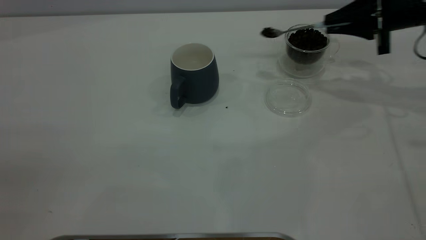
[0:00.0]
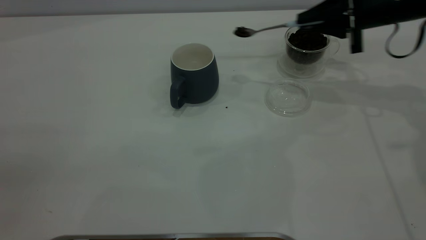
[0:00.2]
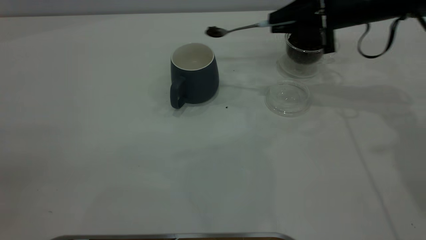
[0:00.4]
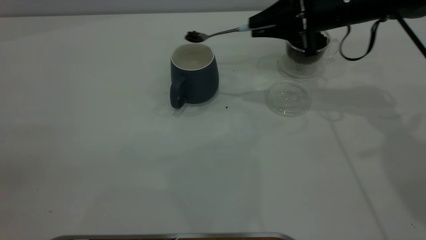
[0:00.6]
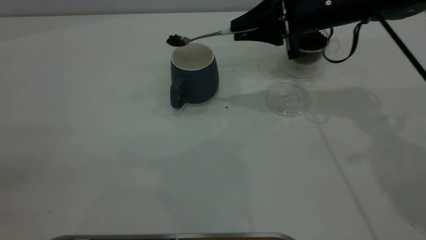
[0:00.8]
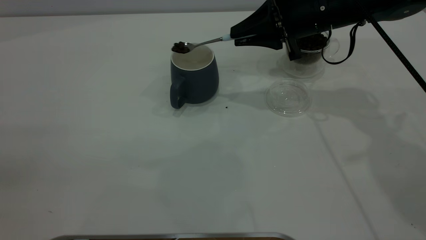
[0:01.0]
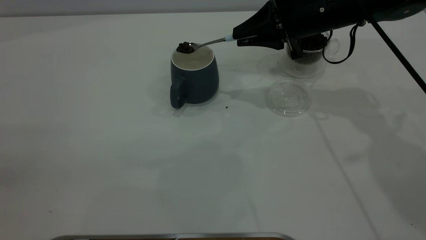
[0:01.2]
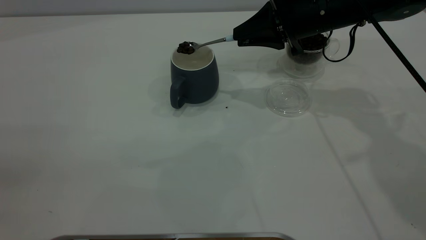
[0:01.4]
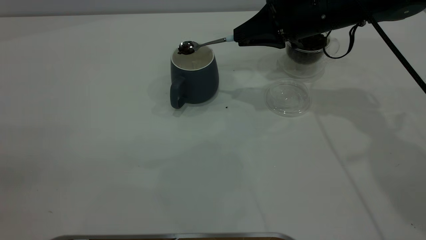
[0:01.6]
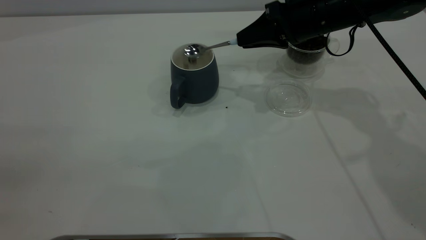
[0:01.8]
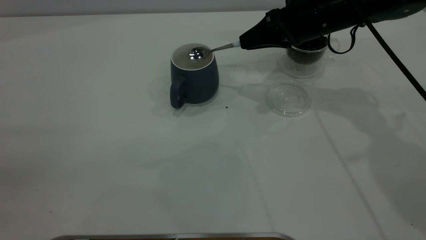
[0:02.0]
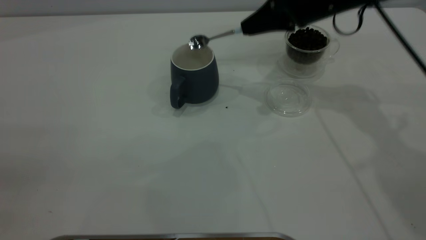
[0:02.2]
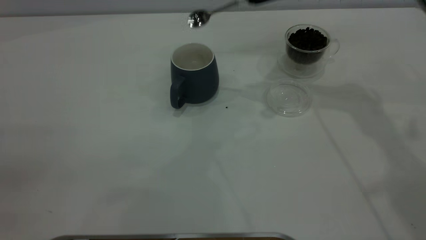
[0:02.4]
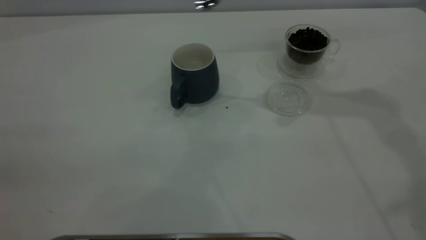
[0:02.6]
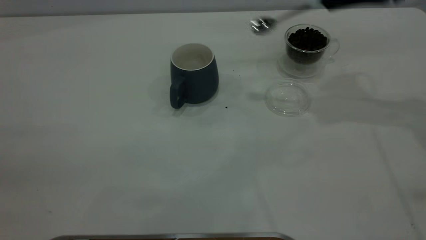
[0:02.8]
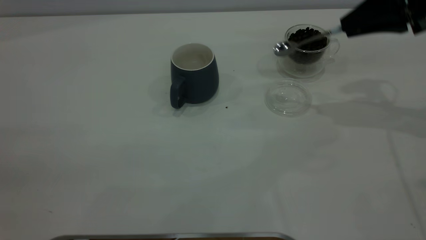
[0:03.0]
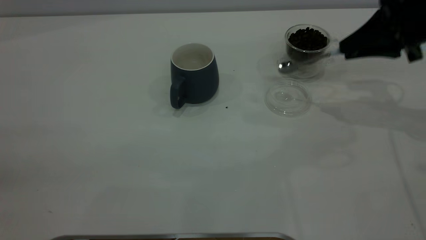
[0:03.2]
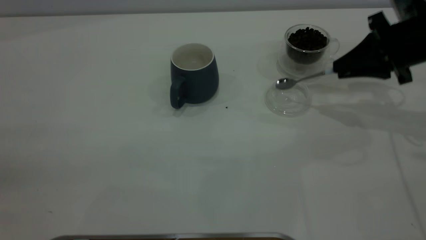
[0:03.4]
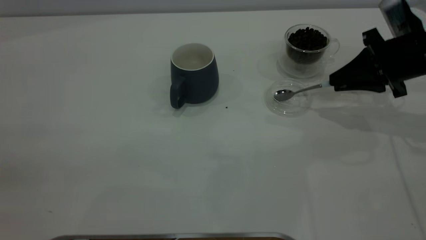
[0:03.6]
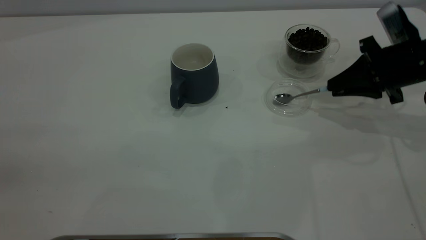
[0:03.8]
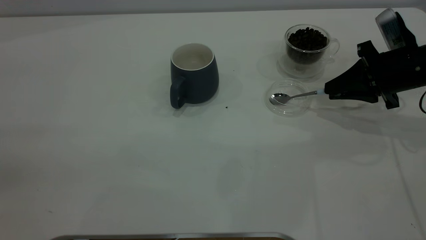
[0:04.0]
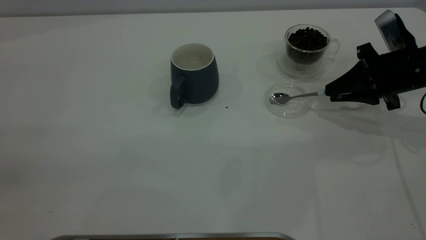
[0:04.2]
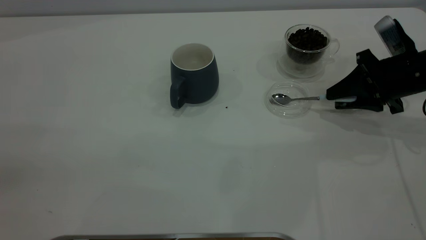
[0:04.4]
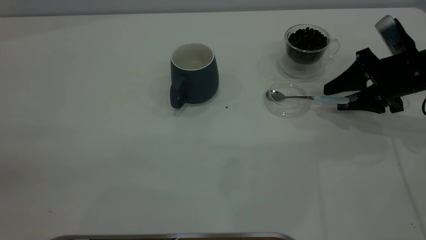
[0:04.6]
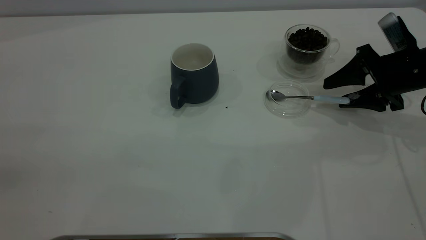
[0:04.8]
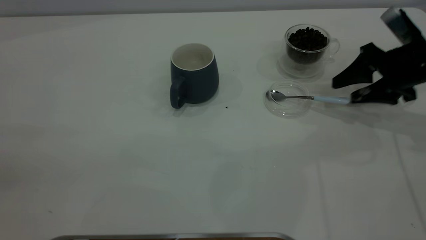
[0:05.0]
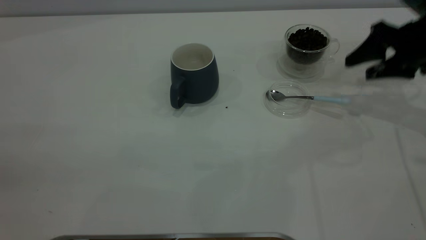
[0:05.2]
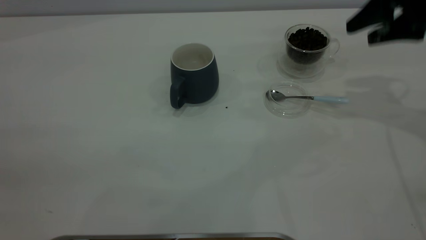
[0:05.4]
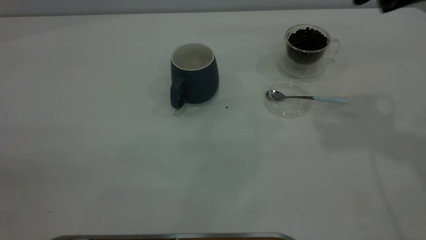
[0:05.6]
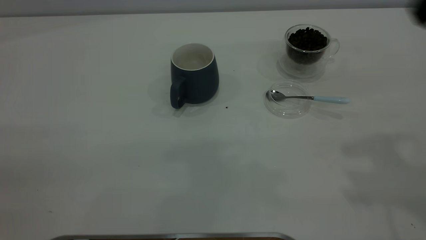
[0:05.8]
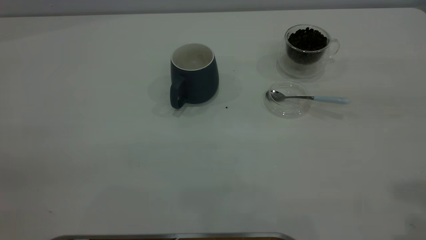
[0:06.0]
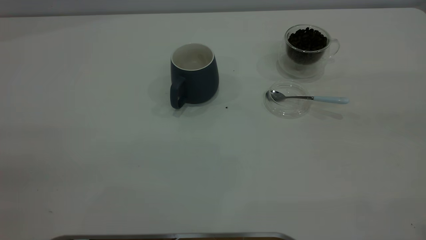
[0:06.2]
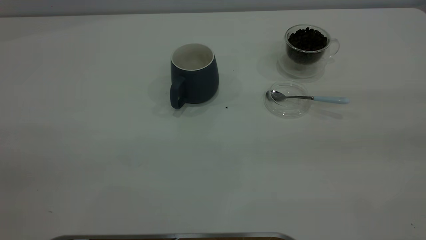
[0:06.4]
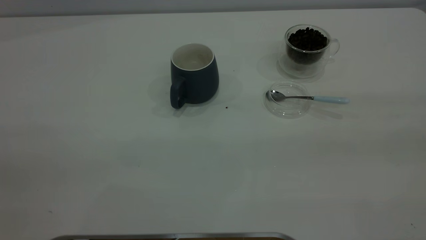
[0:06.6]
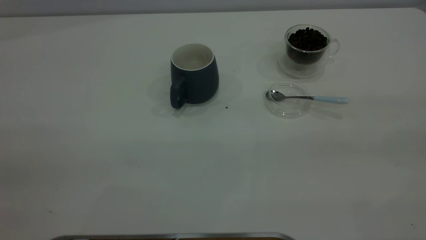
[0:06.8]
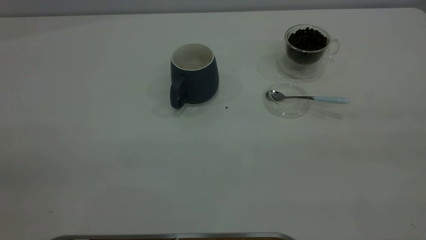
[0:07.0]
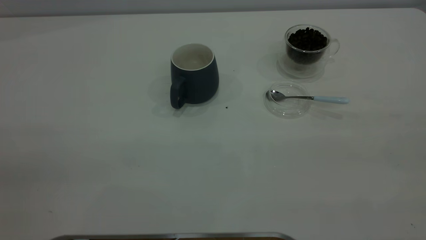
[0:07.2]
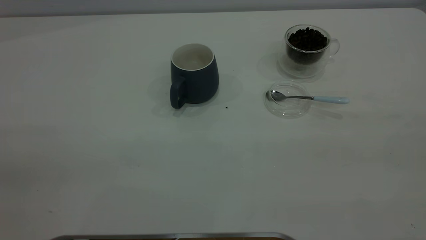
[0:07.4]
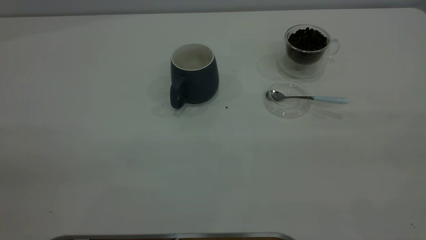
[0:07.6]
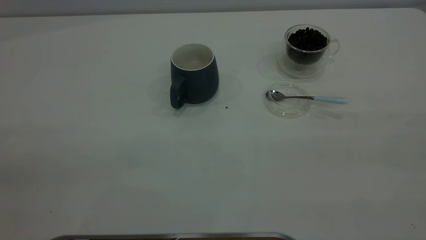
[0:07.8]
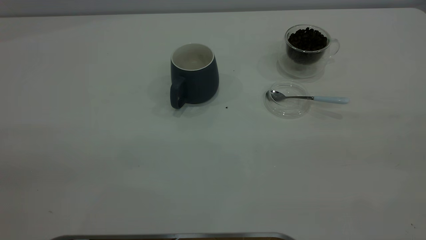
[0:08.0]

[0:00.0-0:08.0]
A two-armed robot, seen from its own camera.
Task of the whole recording: the left gripper place the grey cup in the center of the table, the right gripper take the blue spoon from the cup lid and scoop out the coffee beans from the coffee cup and put them into the grey cup, the right gripper put the spoon back into the cup lid.
Step, 0:00.0 to 0:02.2: Scoop a spoonful of beans into the cup.
Step, 0:02.4 to 0:05.0: Place the spoon back in its original place.
0:00.0 to 0:01.6: The right gripper moves to the left, some 15 cm.
0:01.6 to 0:03.2: The right gripper moves to the right, approximately 15 cm.
0:03.2 to 0:04.8: The right gripper is displaced downward by about 10 cm, and opens.
0:04.8 to 0:06.4: The right gripper goes roughly 40 cm backward and upward.

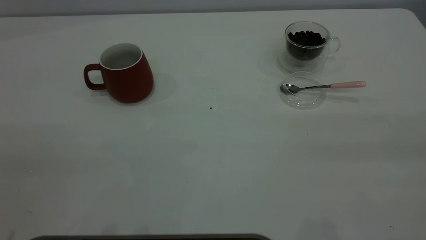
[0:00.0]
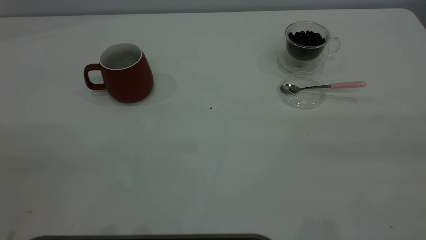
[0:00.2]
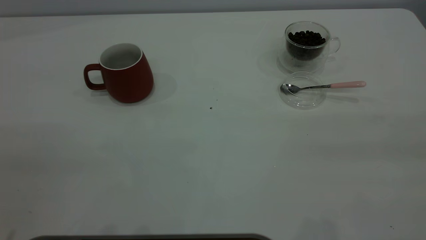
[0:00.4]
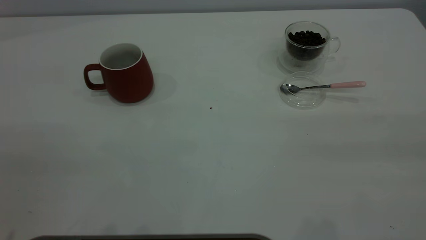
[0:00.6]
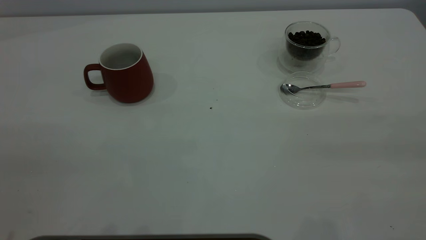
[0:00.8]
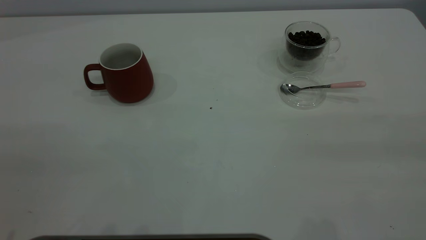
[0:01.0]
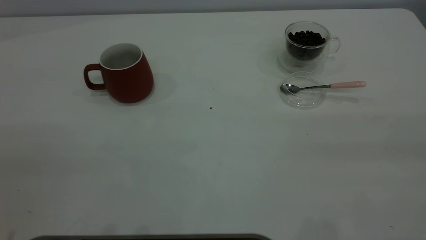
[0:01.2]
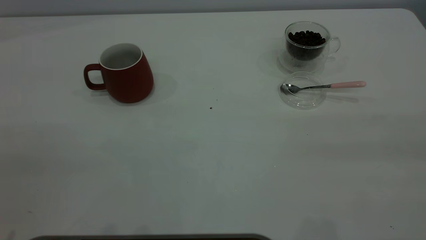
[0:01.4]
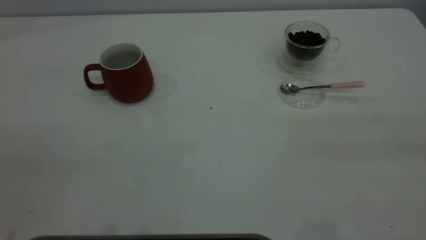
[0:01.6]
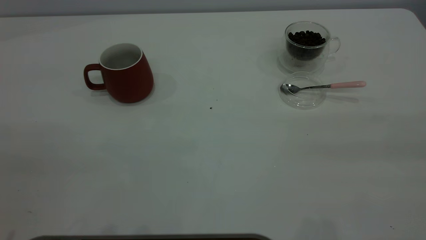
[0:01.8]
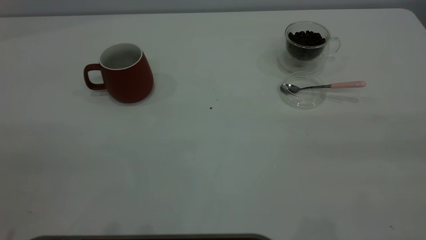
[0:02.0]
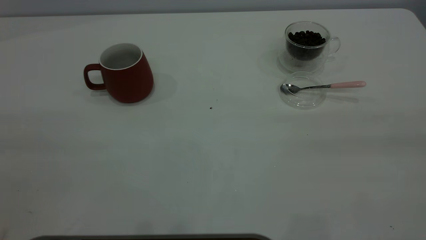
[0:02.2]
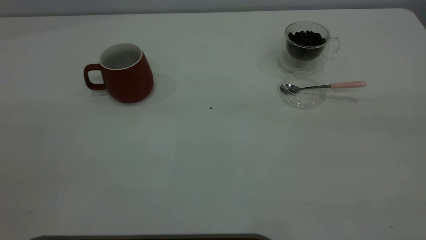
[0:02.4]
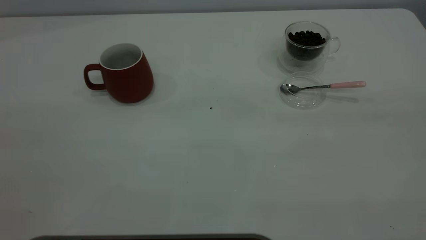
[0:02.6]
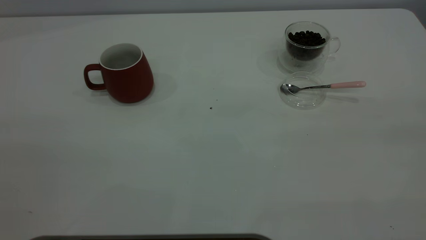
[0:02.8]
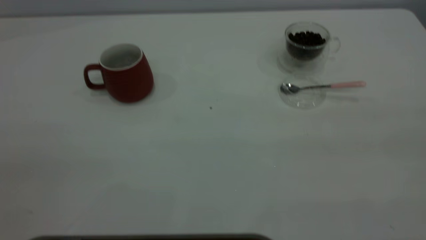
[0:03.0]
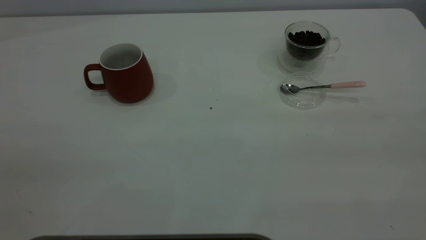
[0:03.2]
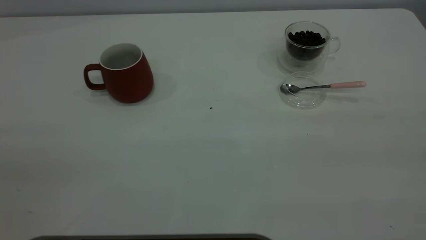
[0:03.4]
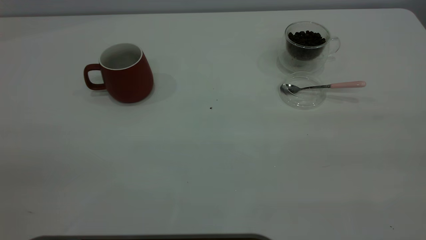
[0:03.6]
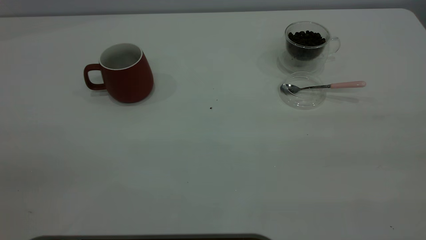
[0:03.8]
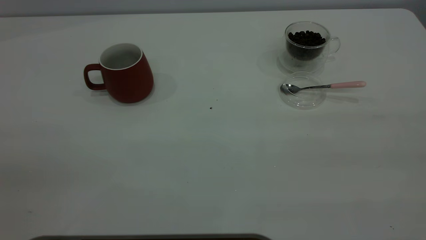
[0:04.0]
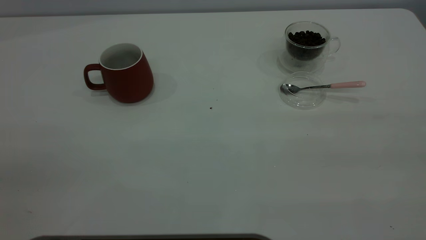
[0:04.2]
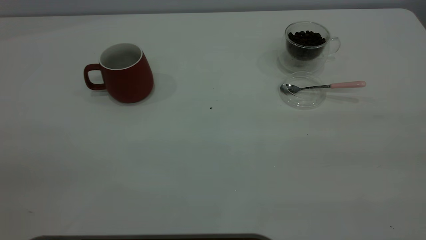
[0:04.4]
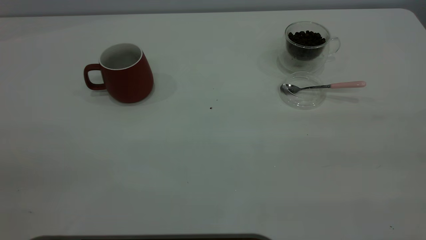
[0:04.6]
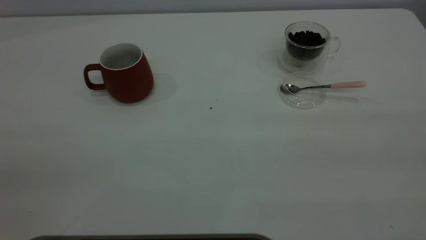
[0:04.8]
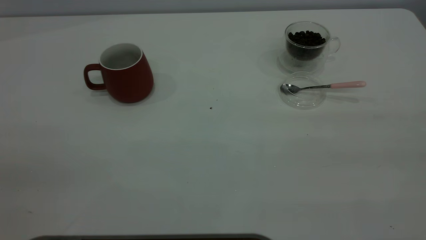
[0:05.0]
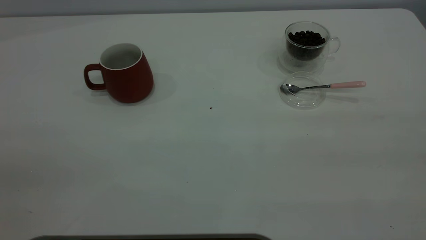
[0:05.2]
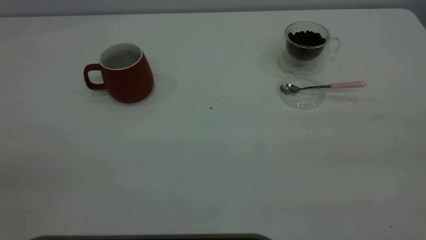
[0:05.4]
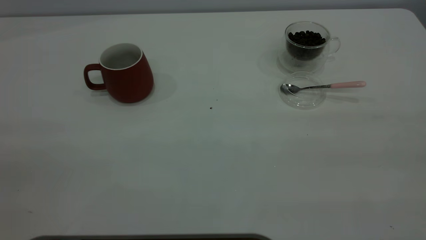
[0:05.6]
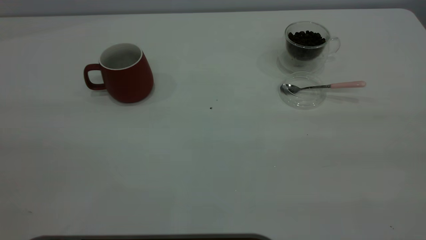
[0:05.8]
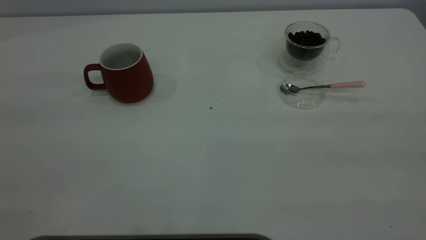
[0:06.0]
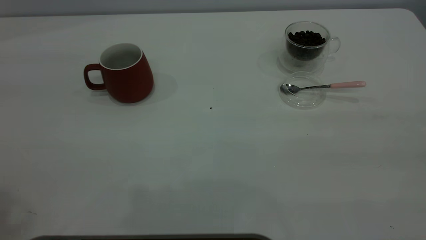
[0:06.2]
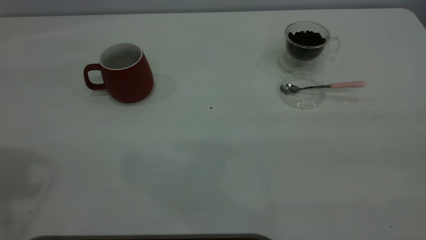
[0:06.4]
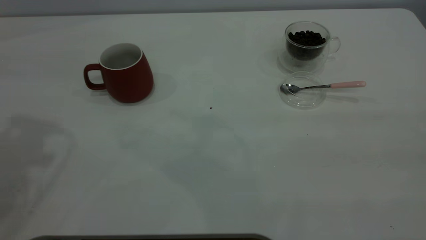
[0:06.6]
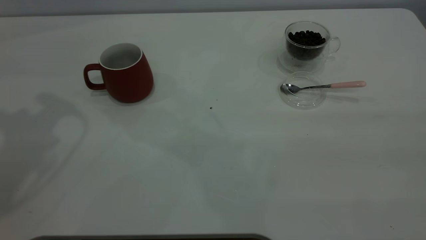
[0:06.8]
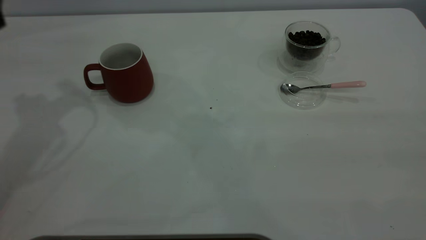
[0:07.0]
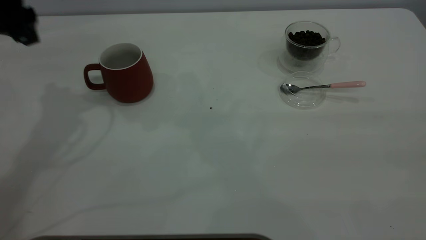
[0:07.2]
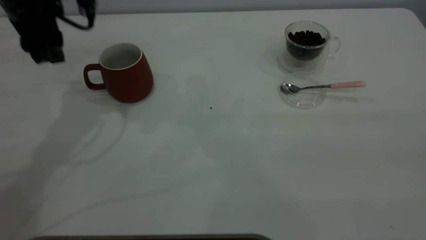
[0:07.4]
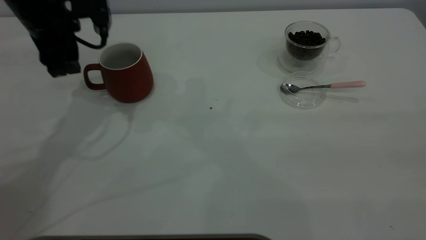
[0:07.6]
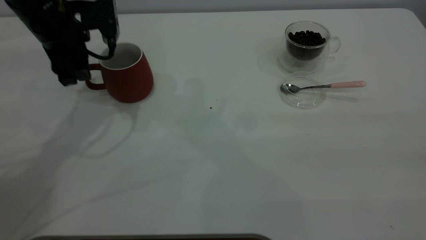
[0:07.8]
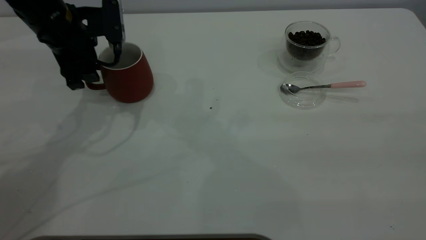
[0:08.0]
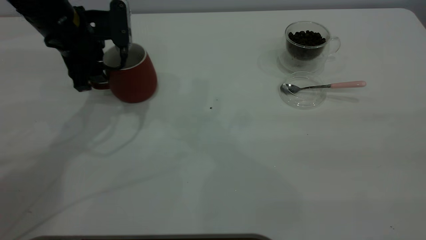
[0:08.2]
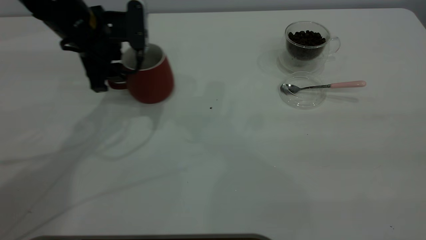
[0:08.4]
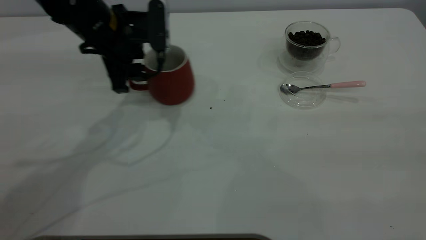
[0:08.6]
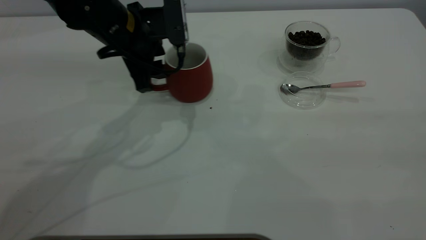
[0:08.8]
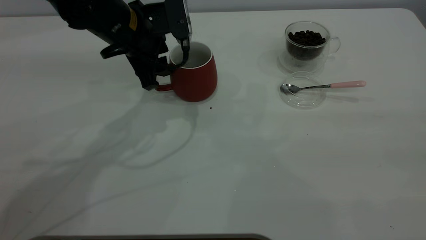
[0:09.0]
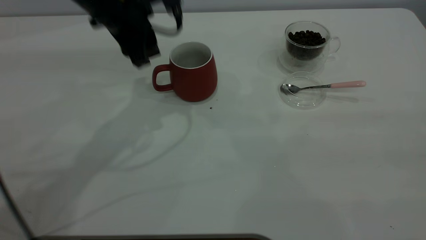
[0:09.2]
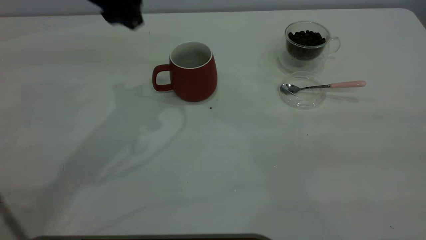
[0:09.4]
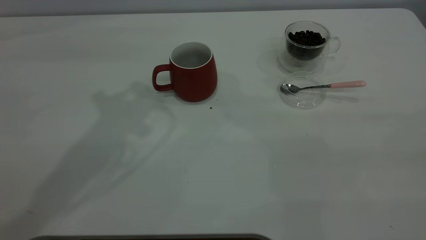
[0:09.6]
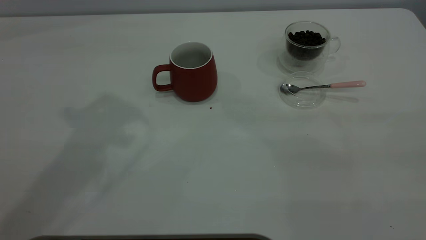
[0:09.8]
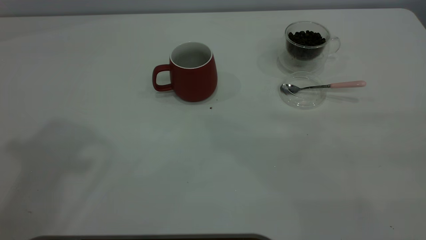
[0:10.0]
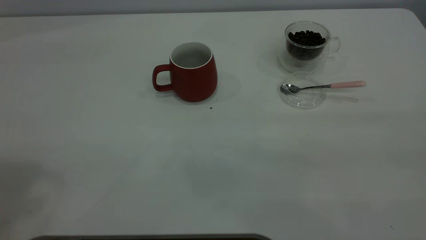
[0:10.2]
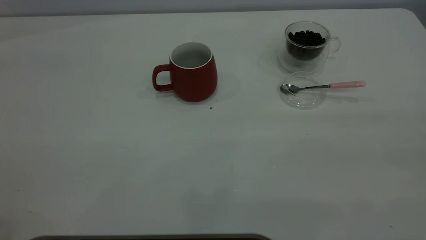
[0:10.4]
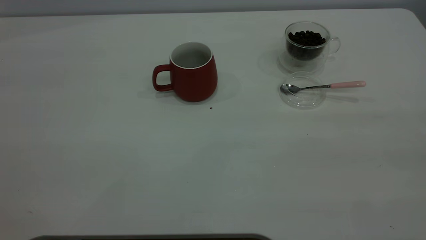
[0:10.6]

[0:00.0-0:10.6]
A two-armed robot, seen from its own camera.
Task of the whole recording: the left gripper place the red cup in the center of the table, the right gripper take the pink spoon from the cup lid and scoop out the coffee beans from the coffee cup and put them into the red cup, the right gripper put the spoon back into the cup lid.
Step, 0:00.0 to 0:09.2: Move the cup to the center of view.
0:00.0 to 0:01.6: Neither gripper changes place.
0:06.0 to 0:07.6: The left gripper is displaced forward and downward by some 40 cm.
0:07.6 to 0:09.0: The left gripper is displaced to the right by approximately 10 cm.
0:09.0 to 0:10.6: The left gripper heads upward, backward and to the left, covering roughly 50 cm.
